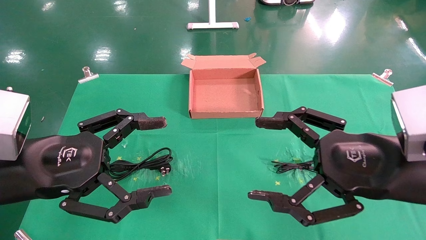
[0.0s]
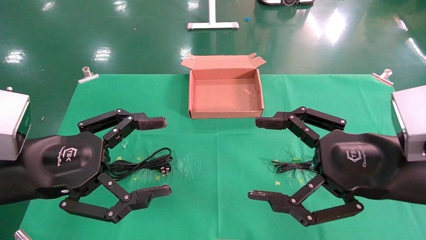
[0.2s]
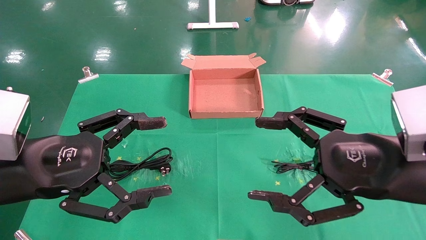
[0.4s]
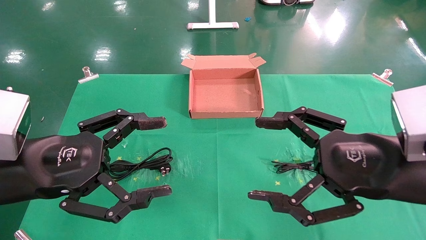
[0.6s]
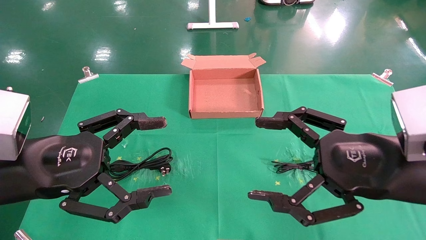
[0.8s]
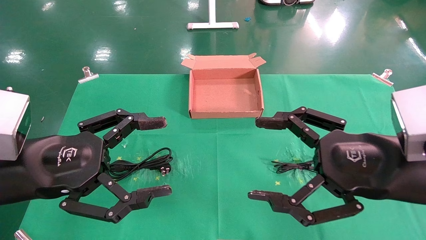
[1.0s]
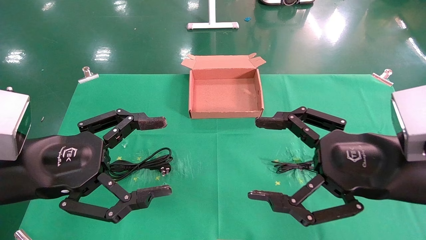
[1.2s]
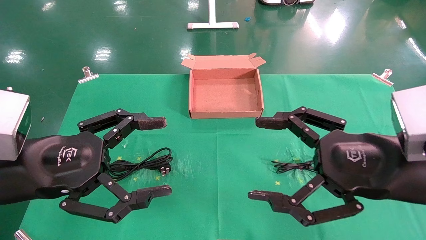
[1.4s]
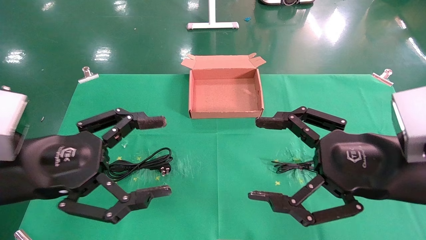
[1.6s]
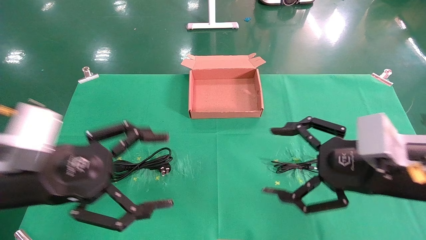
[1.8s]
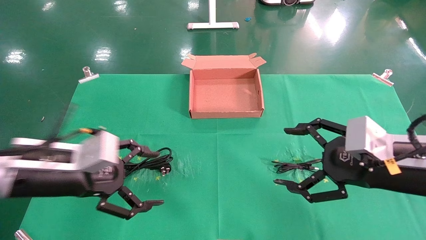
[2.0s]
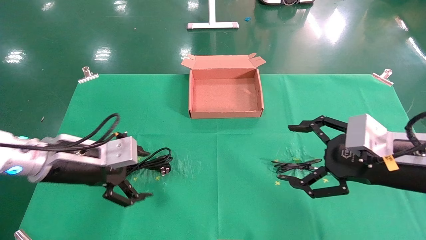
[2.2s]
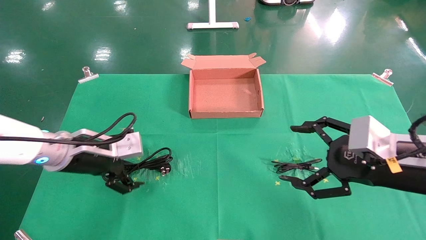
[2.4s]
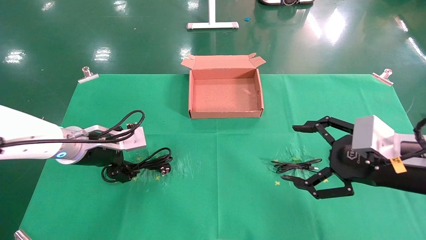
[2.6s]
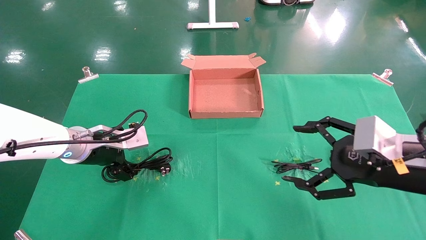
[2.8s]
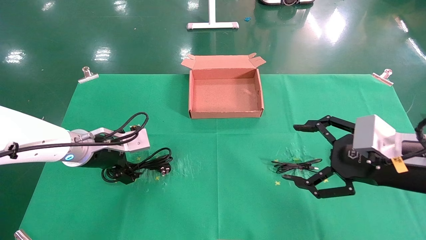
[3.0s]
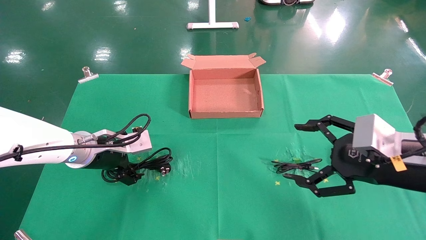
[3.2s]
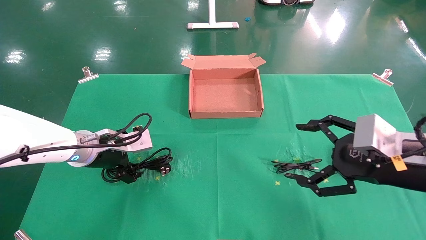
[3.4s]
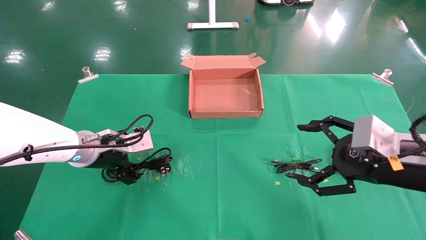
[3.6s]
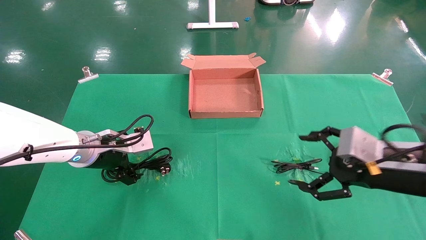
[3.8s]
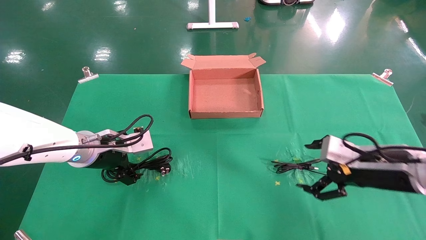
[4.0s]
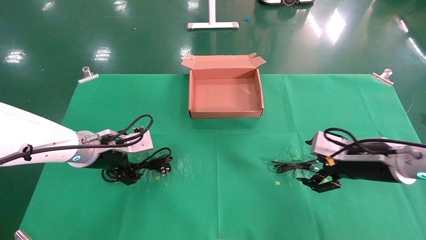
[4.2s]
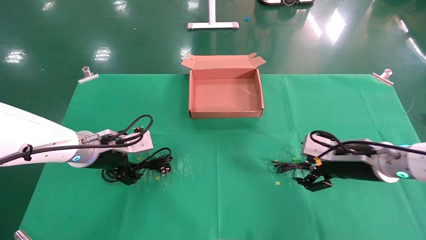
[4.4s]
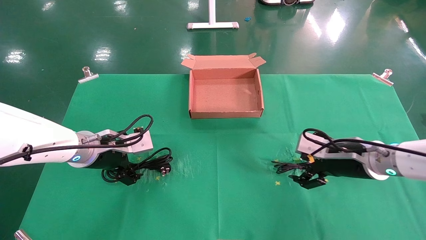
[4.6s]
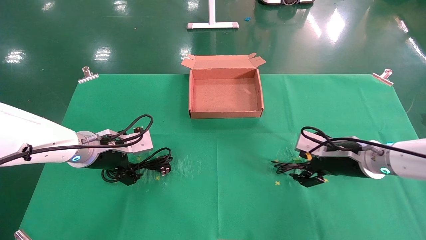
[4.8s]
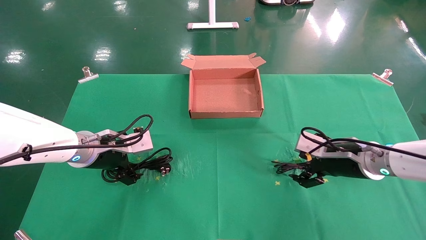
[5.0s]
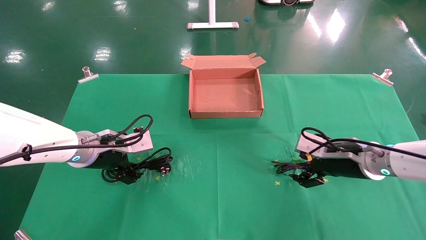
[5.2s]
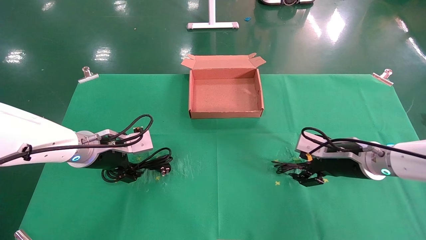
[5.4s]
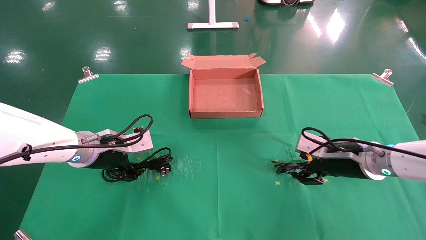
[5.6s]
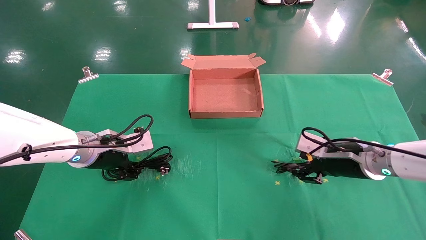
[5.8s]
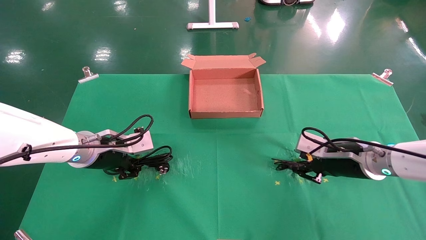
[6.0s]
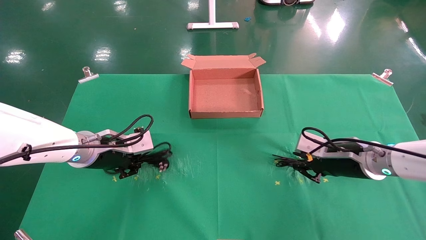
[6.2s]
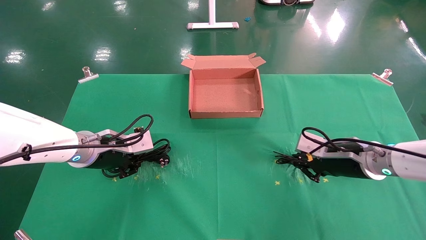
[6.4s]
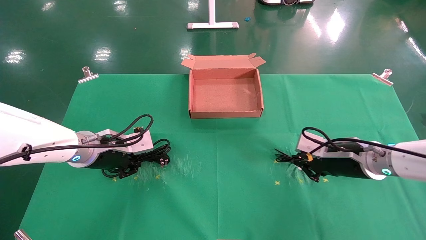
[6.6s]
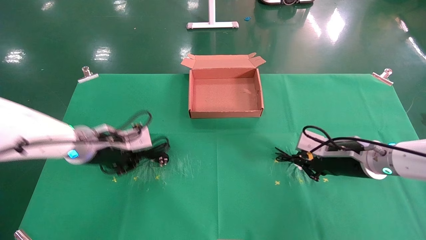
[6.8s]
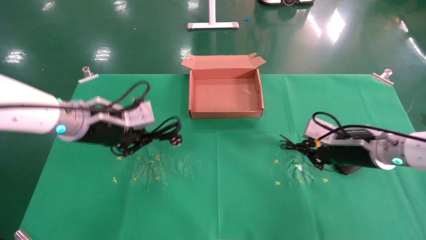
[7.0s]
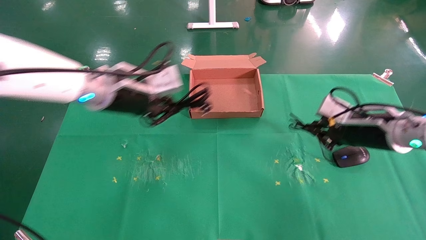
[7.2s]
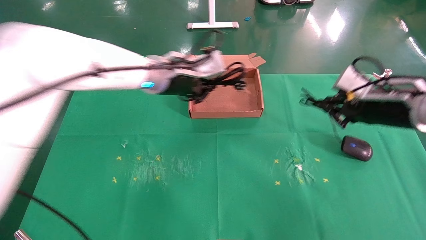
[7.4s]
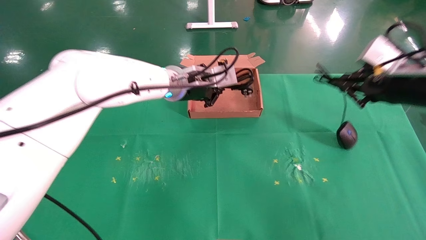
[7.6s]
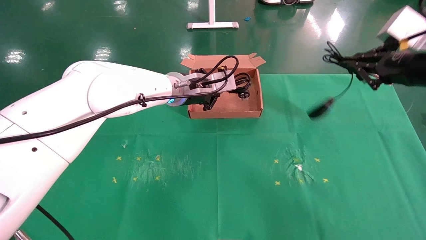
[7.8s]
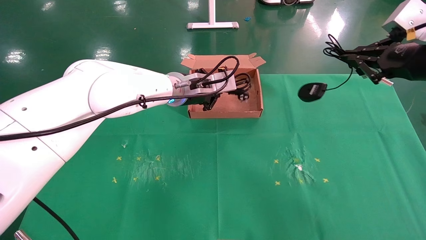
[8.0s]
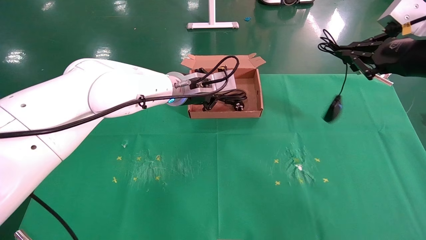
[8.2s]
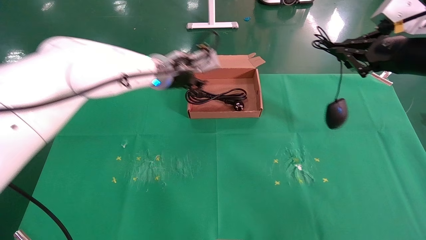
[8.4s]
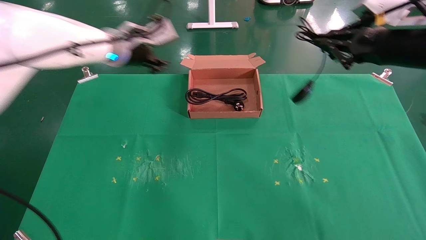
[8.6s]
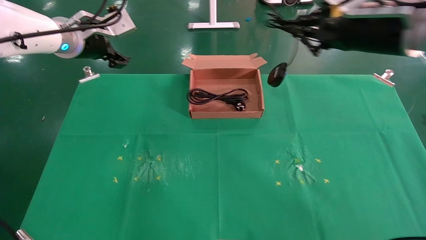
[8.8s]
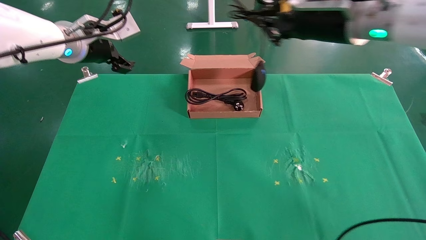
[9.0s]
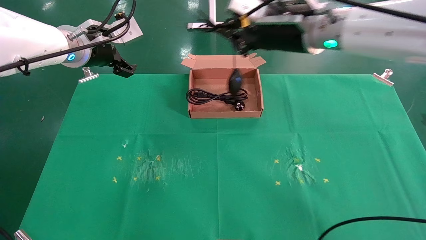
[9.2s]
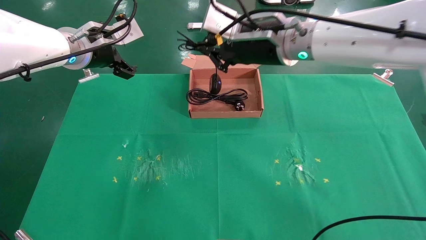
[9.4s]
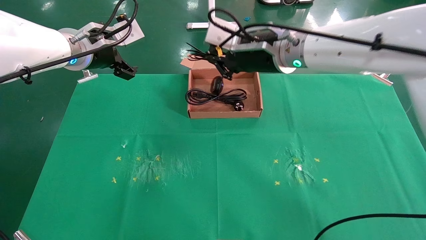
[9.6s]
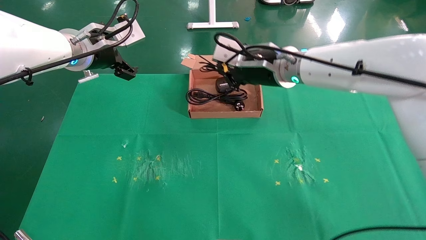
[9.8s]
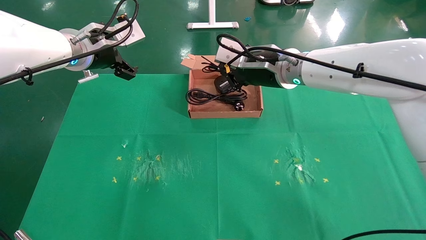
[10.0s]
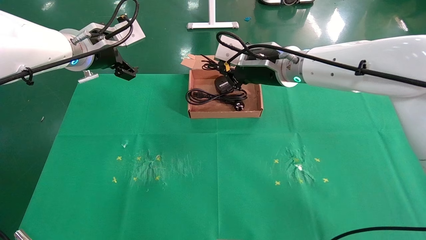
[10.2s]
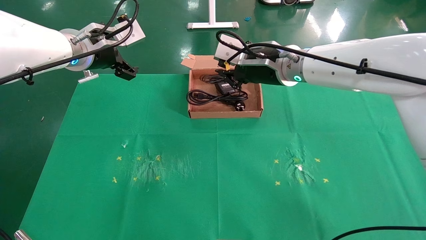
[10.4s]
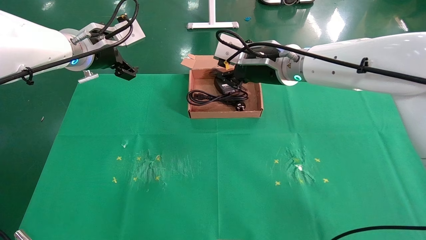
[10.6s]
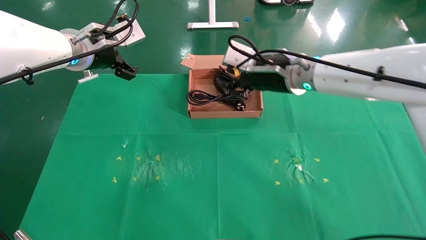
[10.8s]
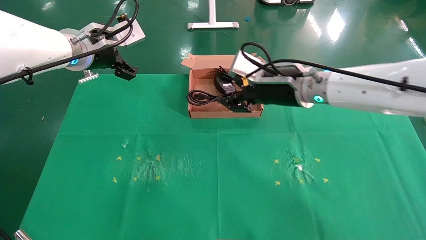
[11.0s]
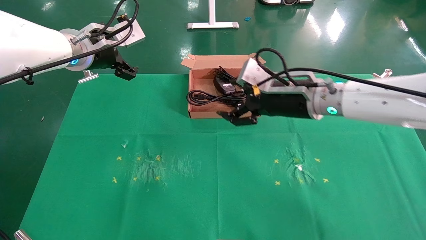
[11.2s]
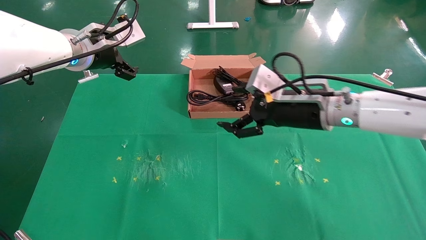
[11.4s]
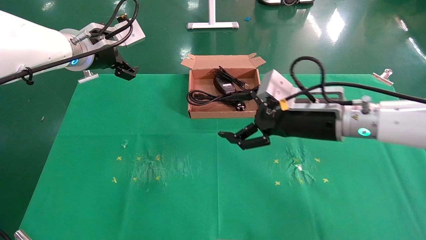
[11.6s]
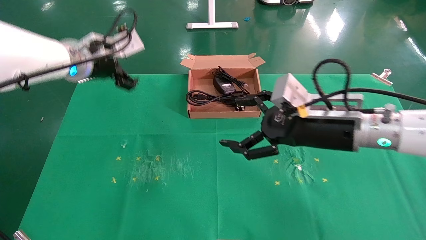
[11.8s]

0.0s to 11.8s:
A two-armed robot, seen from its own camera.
Task of the whole recording: grasp data cable left put into box grasp mouse right put into box.
Step, 1.6s to 6.8s: Simultaneously pick up the mouse and power cord from the accessory packaging area.
Step, 7.0s to 10.8s: Place the mouse and power cord into the box.
0.0s to 1.4s: The two grippers keep their place.
1.4s to 3.0s: The left gripper shifts roughly 15 cm forward. Meanwhile the right gripper changes place by some 5 cm.
3.0s to 4.4s: The right gripper travels forward and downward by approximately 10 cm.
4.4s to 6.0s: The left gripper closes, while the right gripper closes.
6.0s to 7.4s: The right gripper shifts some 15 cm upward and to the right, and closes its fingers. Meanwhile the left gripper travels to the right, upward and forward by approximately 20 cm, and closes up.
7.4s to 8.8s: The right gripper moves upward and to the left, roughly 15 cm. Meanwhile the left gripper is displaced to the left and upward by approximately 15 cm, and opens.
8.8s to 10.4s: The right gripper moves to the left, forward and downward, roughly 15 cm; the left gripper opens up.
10.4s to 11.8s: The right gripper travels backward, to the right and downward by about 15 cm, and opens up.

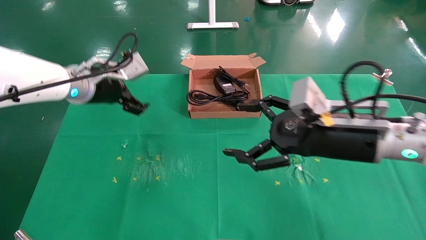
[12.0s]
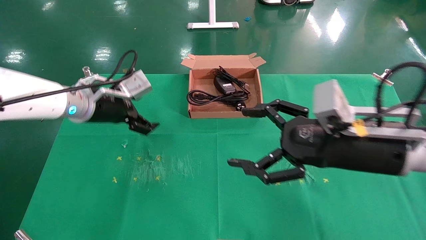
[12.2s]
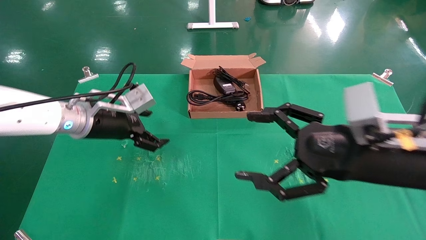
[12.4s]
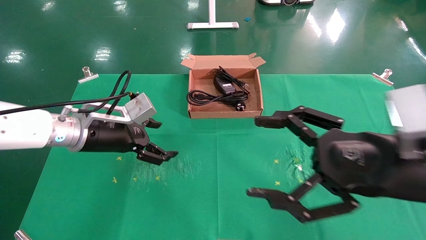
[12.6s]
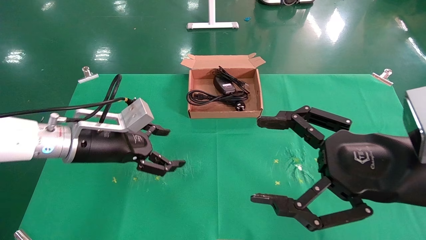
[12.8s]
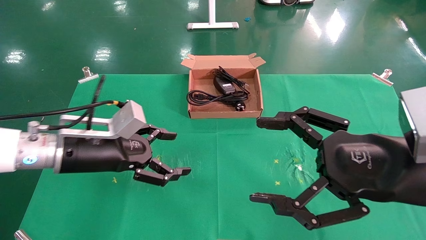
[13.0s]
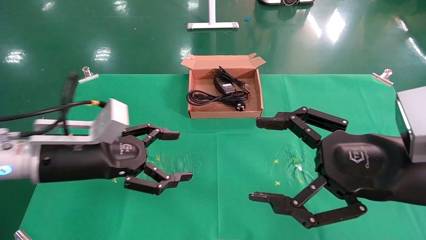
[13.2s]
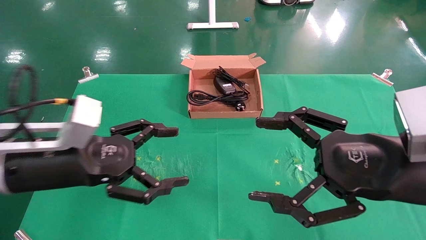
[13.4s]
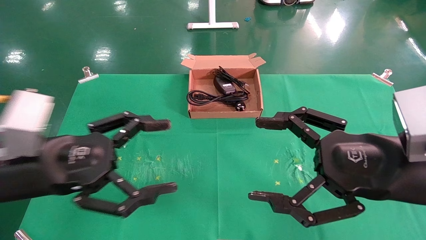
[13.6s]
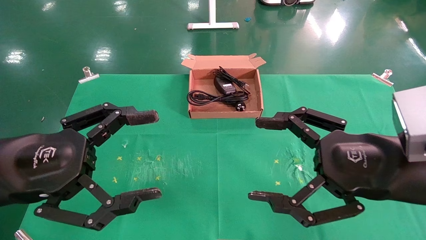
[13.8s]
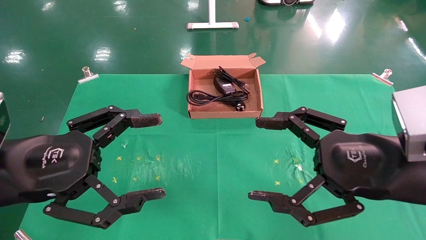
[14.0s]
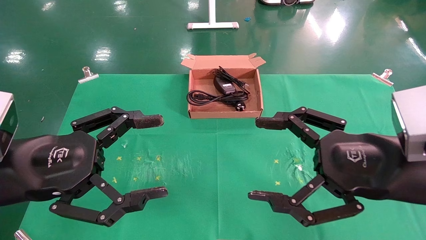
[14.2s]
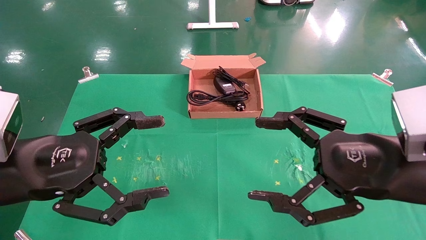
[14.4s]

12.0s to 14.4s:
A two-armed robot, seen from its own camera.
Task of the whole recording: grasp data cable left put into box grasp mouse right put into box.
12.0s to 13.2s: The right gripper moves backward, roughly 10 cm. Meanwhile the left gripper goes approximately 15 cm backward and downward.
13.2s to 14.4s: The left gripper shifts some 10 cm backward.
